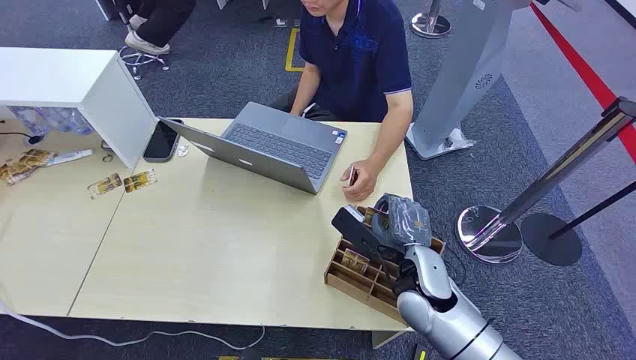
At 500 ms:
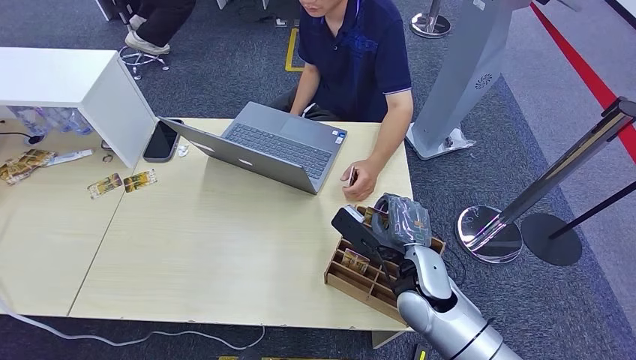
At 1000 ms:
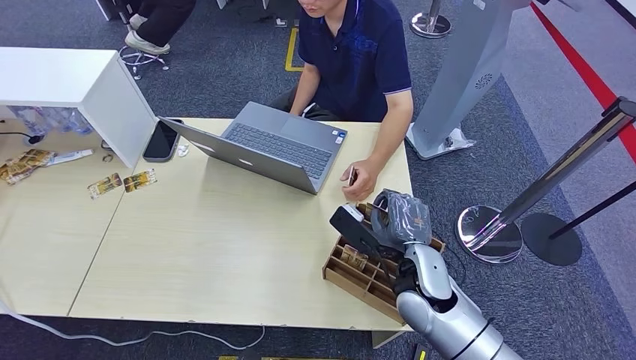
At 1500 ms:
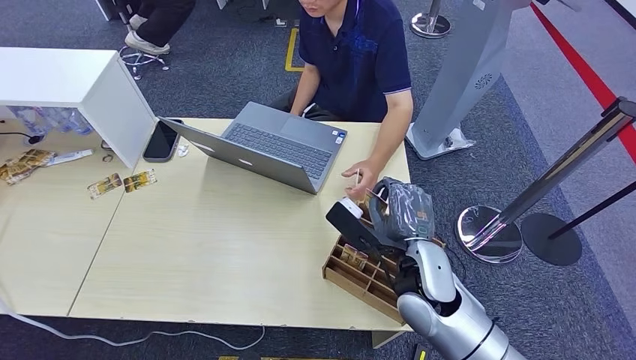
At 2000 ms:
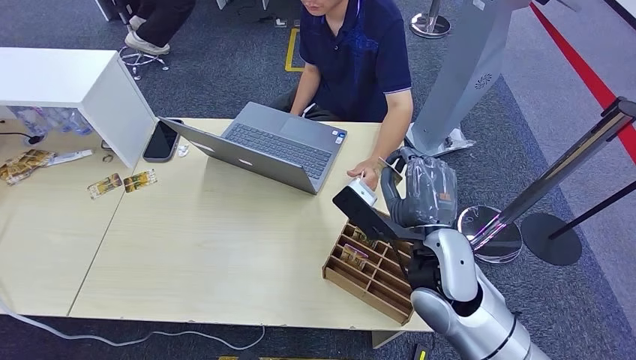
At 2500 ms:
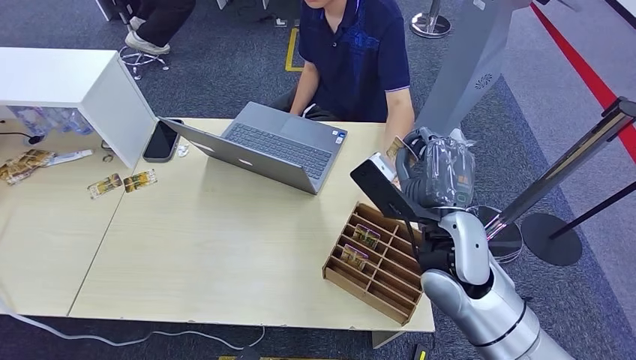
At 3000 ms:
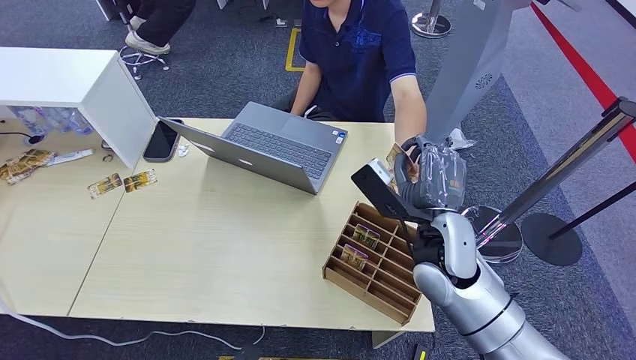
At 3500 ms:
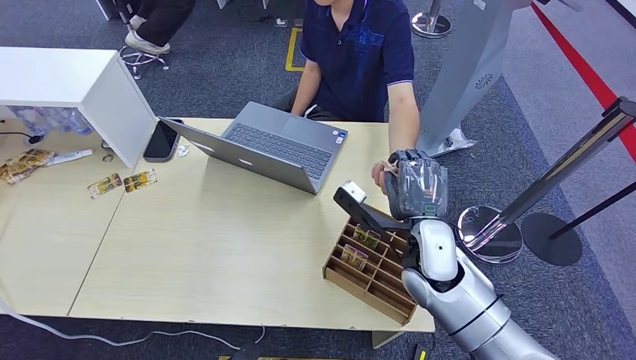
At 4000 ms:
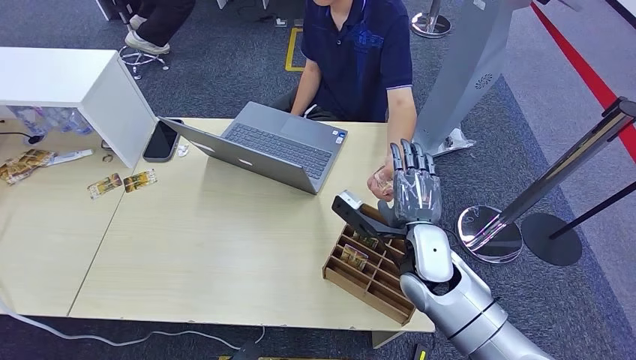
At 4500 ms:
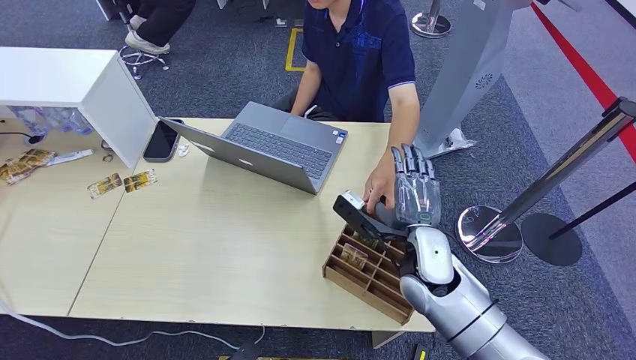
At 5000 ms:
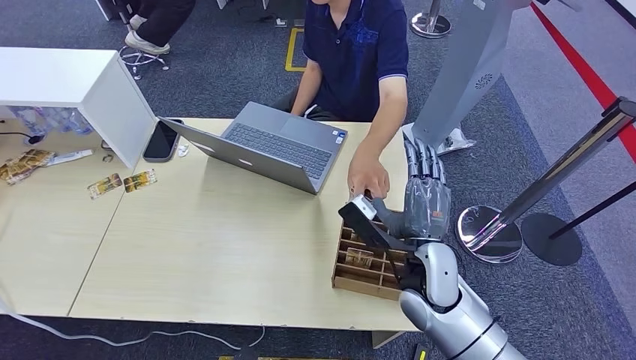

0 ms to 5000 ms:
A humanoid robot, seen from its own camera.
Step, 0 ms to 2000 ms: Pick up the room card from the card holder.
Step, 2500 ms to 5000 ms: Hand the room card to the target.
2500 ms to 5000 ms: The right hand is displaced downward by approximately 10 cm.
